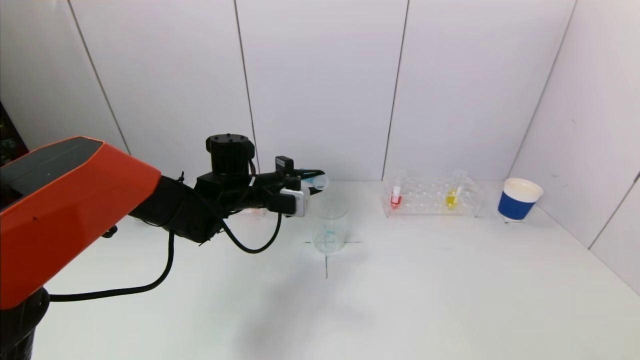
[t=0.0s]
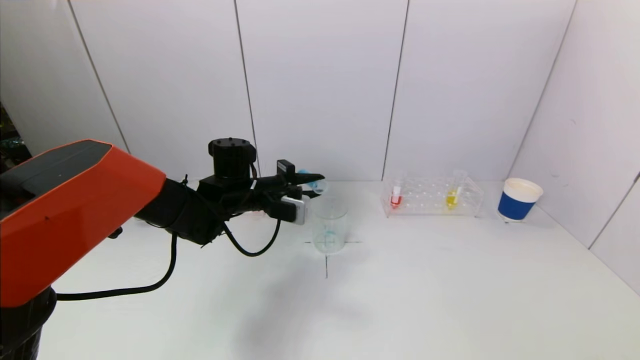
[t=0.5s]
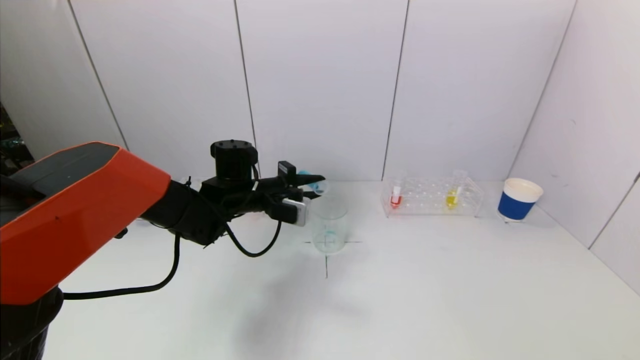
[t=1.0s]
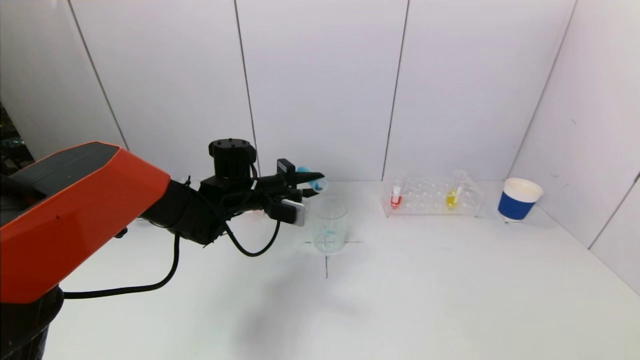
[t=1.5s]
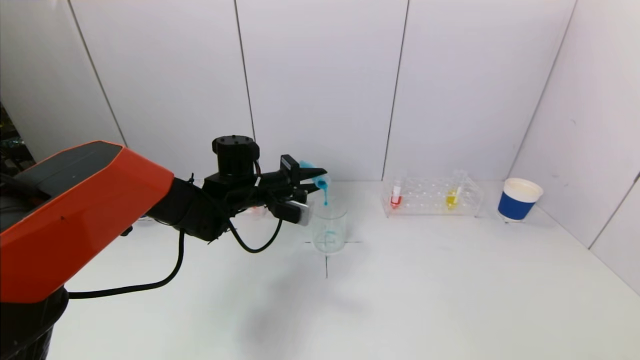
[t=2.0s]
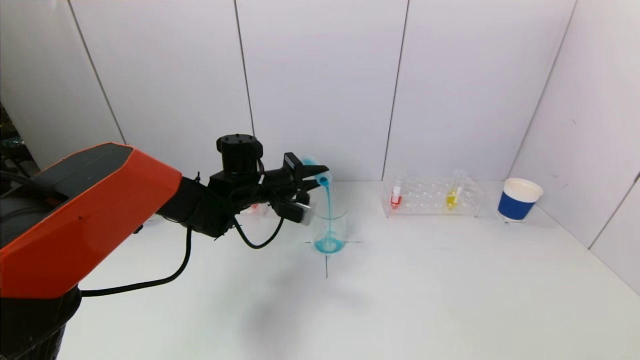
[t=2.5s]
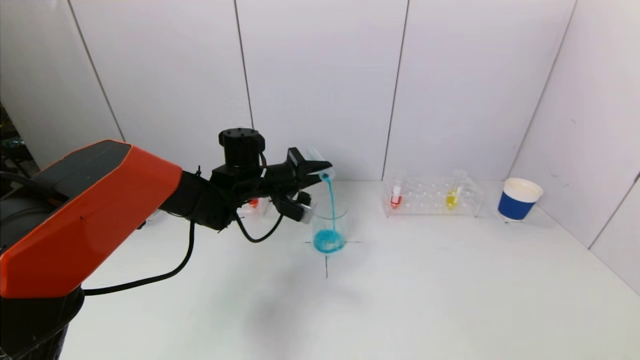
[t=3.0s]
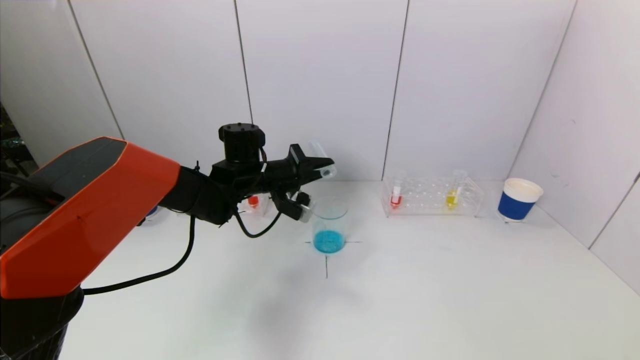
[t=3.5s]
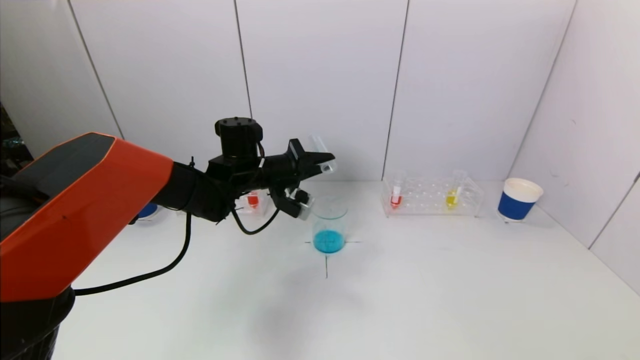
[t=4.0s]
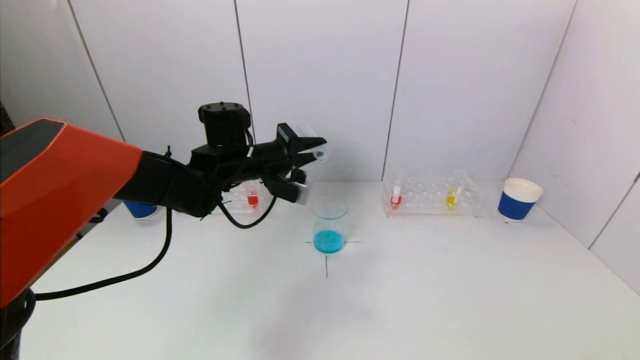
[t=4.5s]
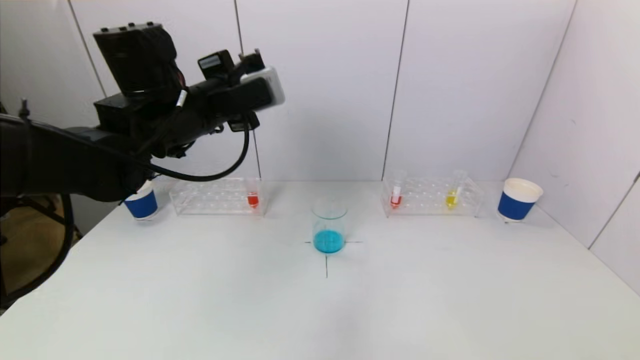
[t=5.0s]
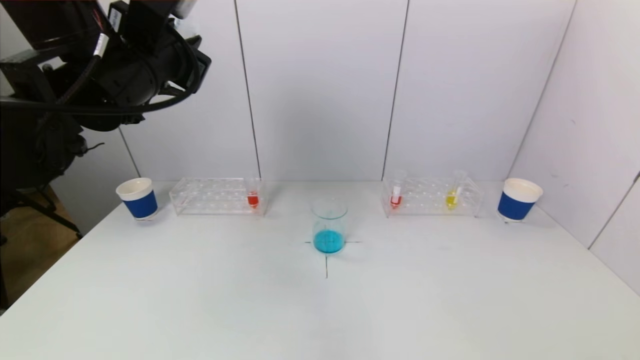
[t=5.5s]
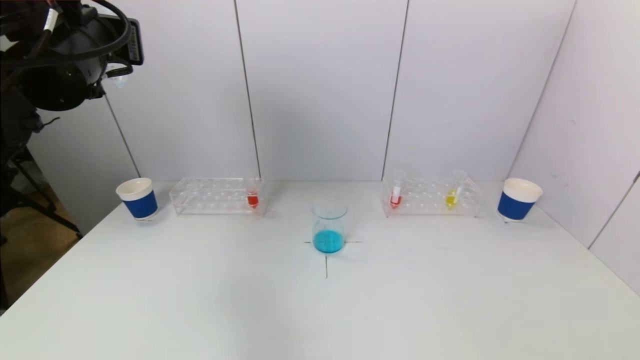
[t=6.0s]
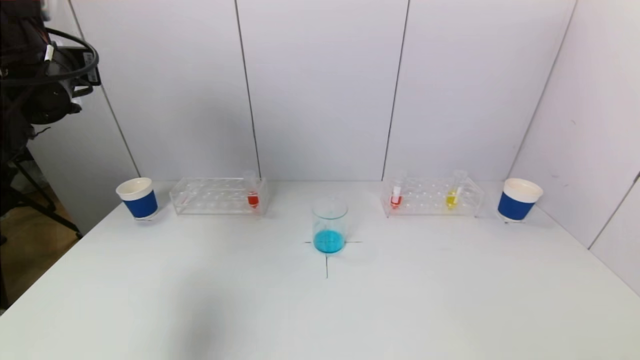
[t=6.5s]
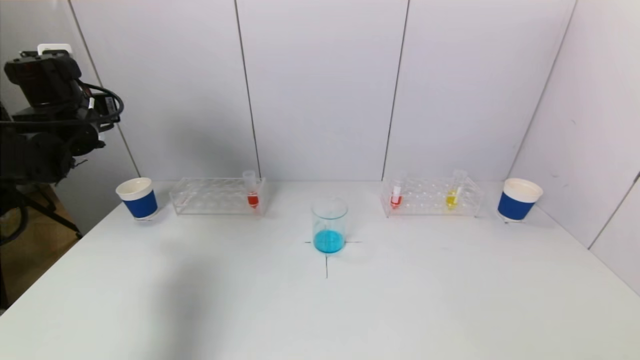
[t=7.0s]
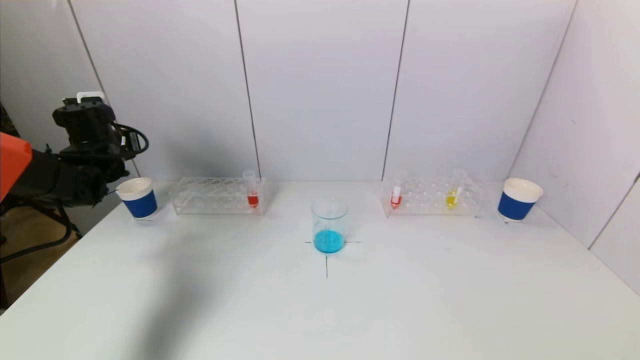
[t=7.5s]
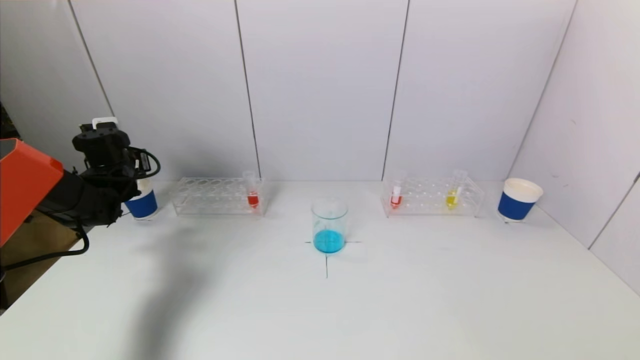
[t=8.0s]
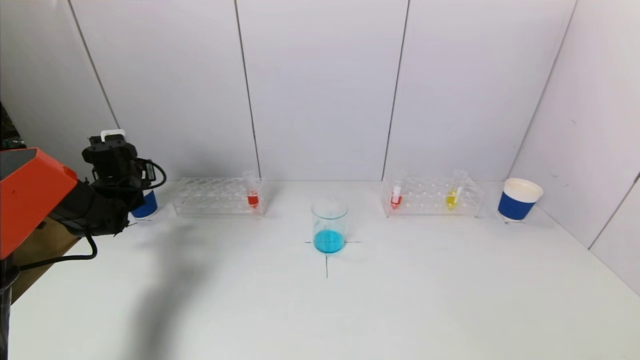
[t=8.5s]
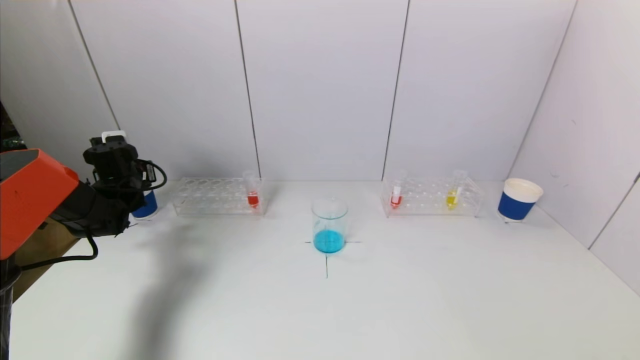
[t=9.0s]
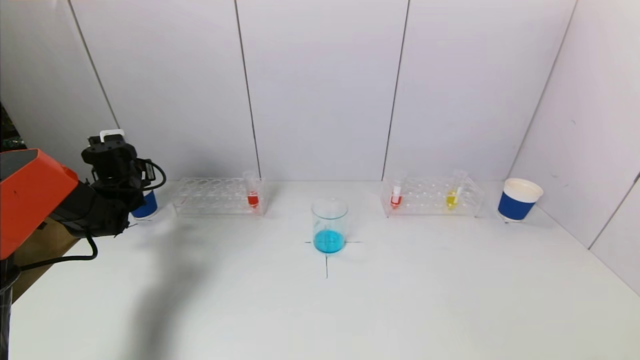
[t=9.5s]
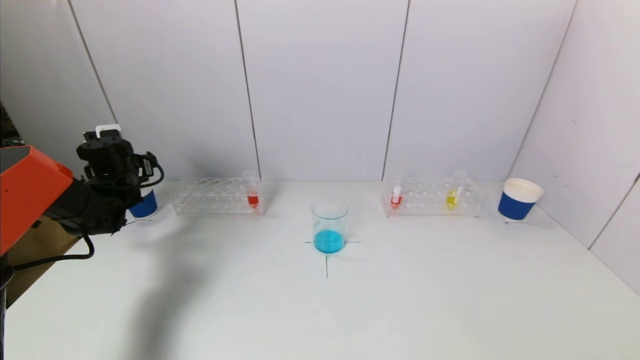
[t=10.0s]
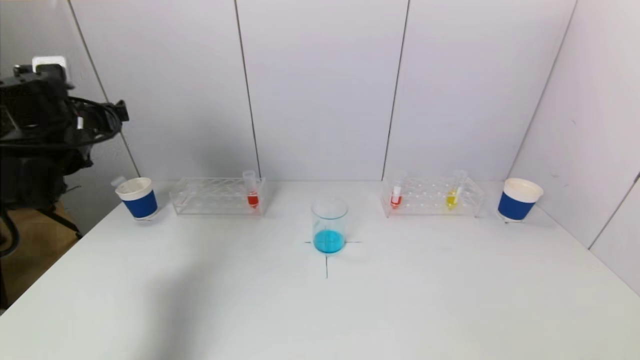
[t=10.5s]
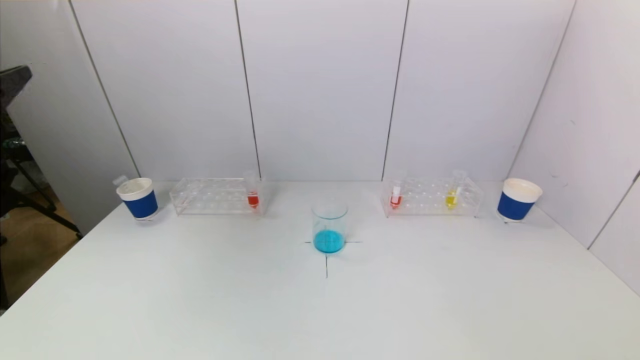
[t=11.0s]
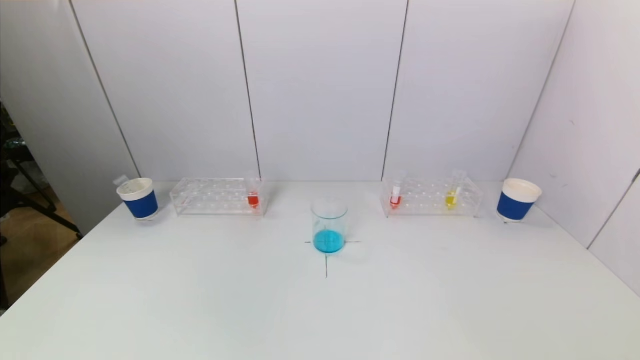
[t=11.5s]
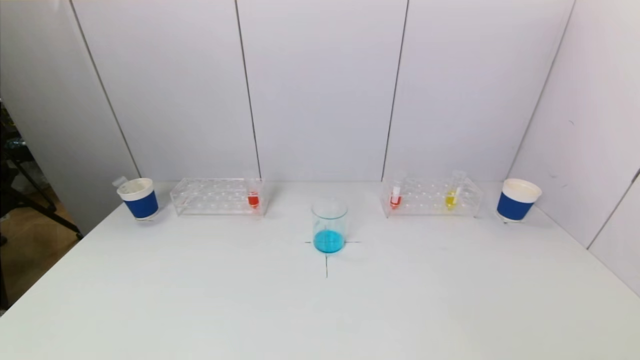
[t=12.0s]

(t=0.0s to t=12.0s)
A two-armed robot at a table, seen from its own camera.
Task of the whole recording: pick up a test tube with pigment on left test tube rack and a test tube with pigment on right test tube rack by grippers and pour them into the beaker.
Step, t=0.0s - t=4.0s: Pour the blue reagent into the graduated cylinder with the left gripper.
Step, t=4.5s - t=10.0s: Place the test tube into the paper cup with the left gripper.
t=0.0s - t=2.0s: The grippers make only small movements.
t=4.0s - t=6.0s: The left gripper travels upward, to the left and backward by approximately 25 cm.
t=6.0s - t=8.0s: The left gripper shifts some 30 cm downward, forward and to the left.
t=8.0s - t=10.0s: The left gripper opens up.
t=10.0s - t=12.0s: The left gripper is displaced backward by about 50 cm.

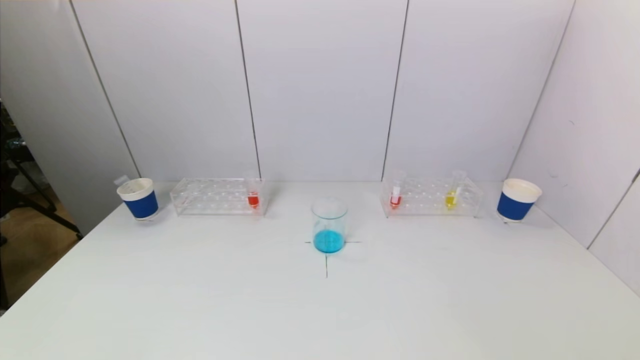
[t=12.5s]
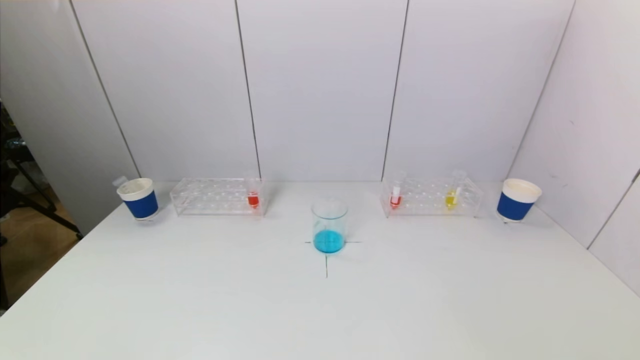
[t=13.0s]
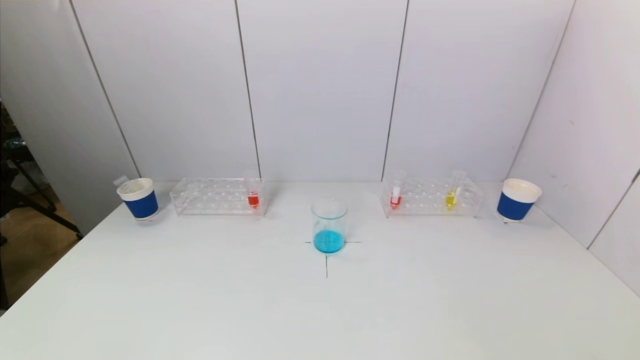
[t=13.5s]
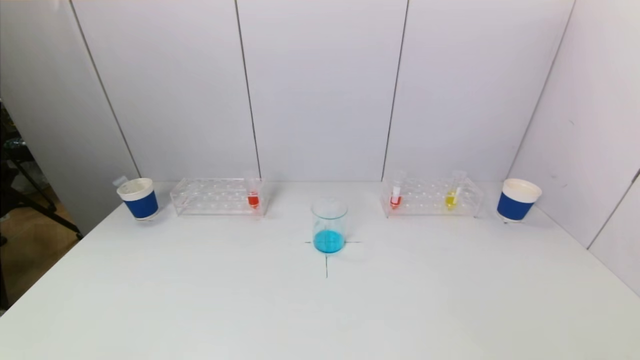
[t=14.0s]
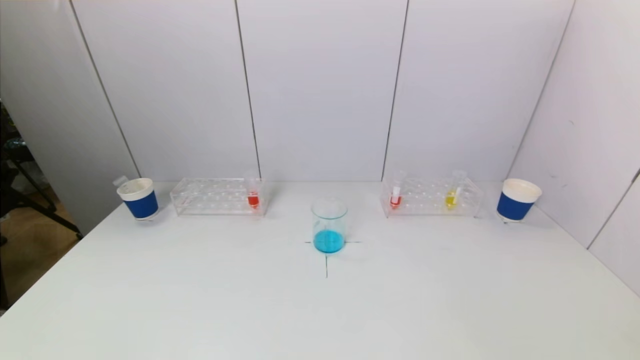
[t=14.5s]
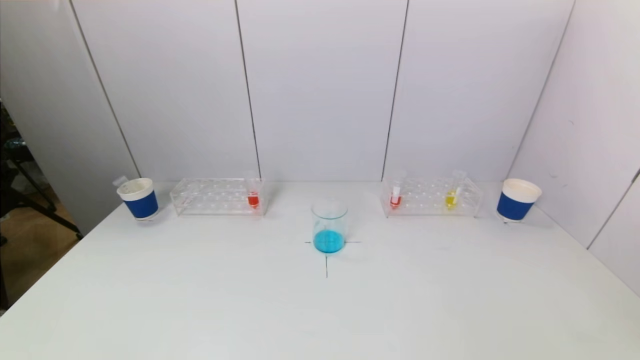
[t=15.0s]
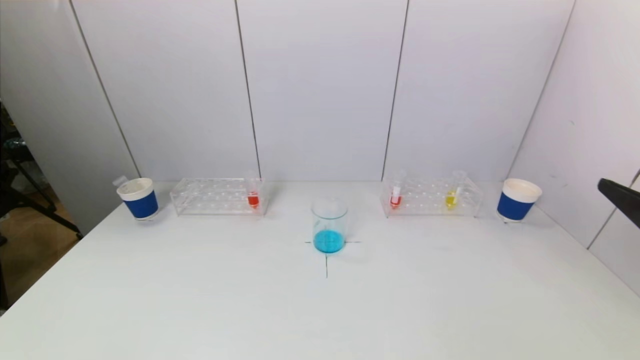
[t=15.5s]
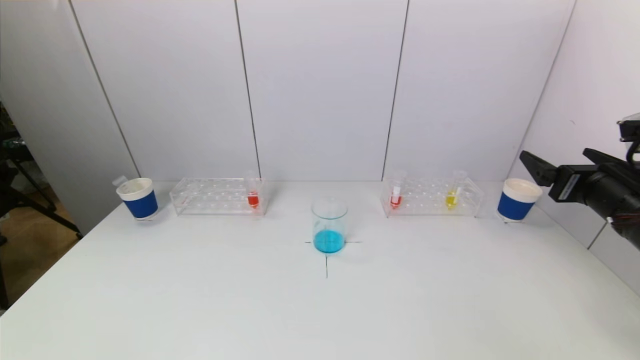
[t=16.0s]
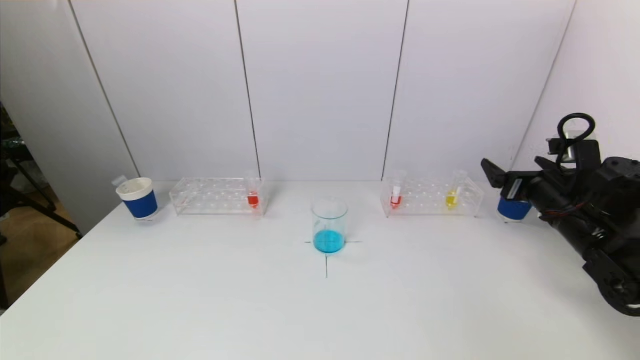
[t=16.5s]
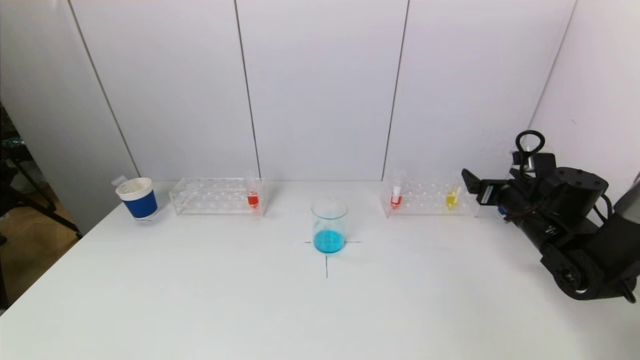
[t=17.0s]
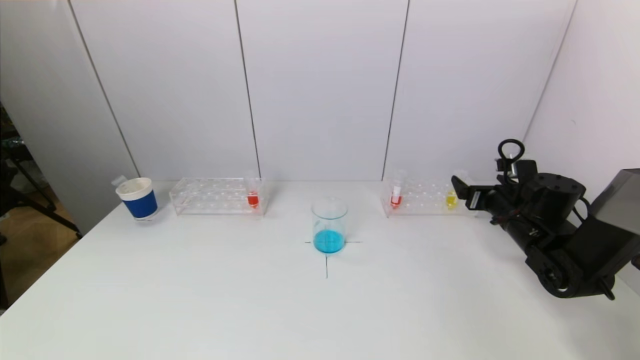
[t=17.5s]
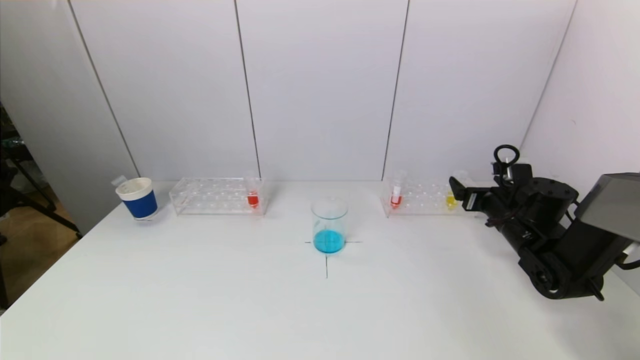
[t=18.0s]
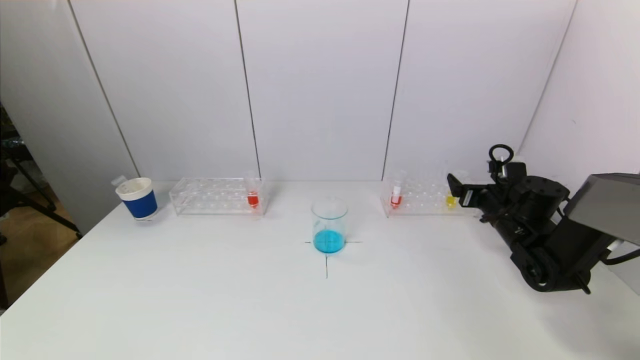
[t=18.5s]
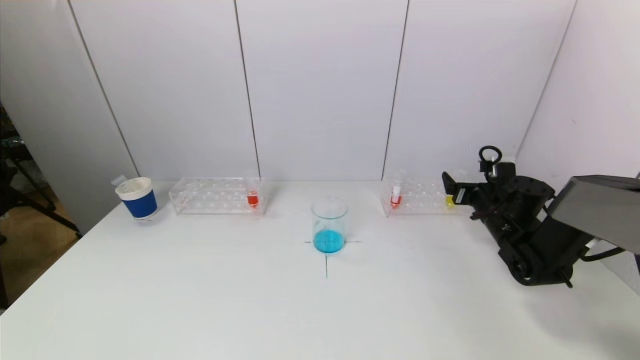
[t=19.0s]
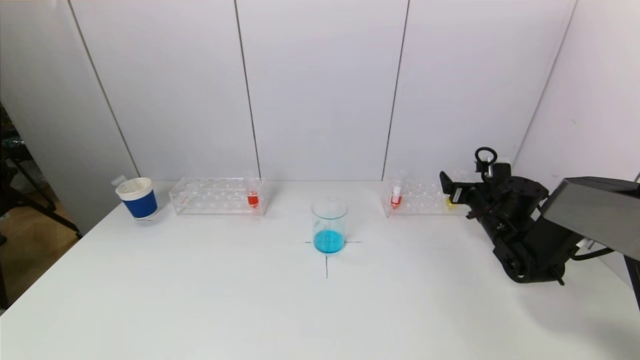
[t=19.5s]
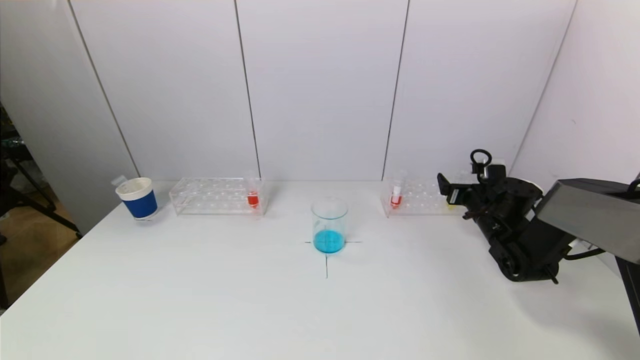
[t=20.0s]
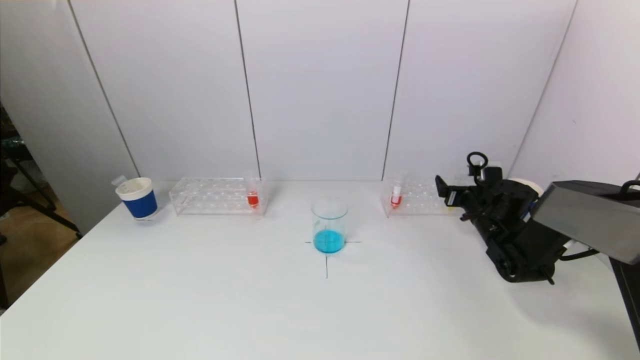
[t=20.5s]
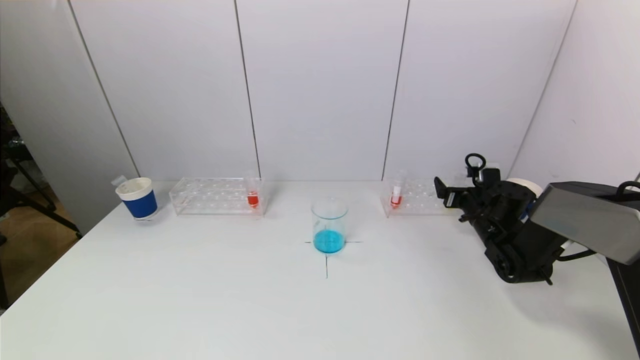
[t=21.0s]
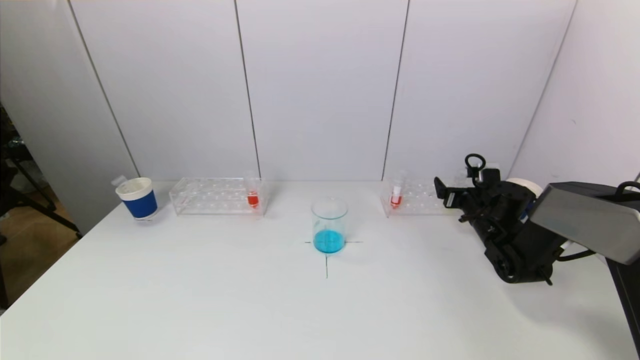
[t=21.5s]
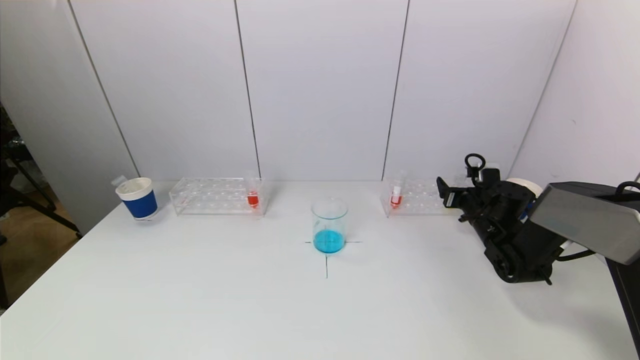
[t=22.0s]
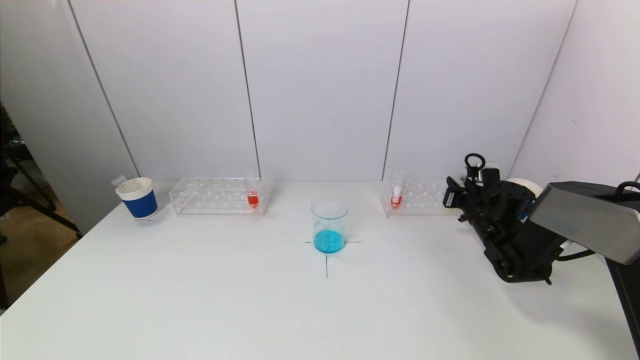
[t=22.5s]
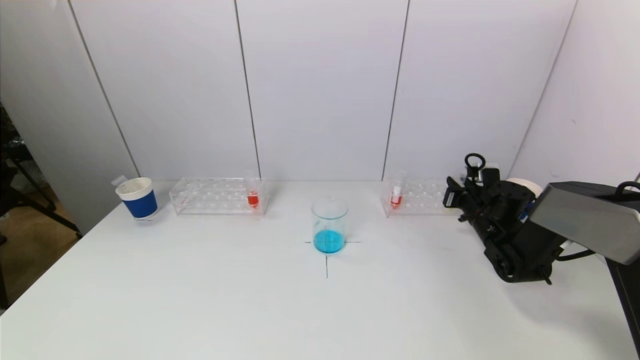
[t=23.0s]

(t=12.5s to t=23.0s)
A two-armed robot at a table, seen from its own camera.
Task of the whole recording: pick up a test tube with pigment on left test tube rack and a test tube with pigment on right test tube rack by grippers and pour them into the beaker.
t=14.5s - t=16.5s: The right gripper moves forward, approximately 35 cm.
t=16.5s - t=19.0s: The right gripper travels forward and downward by approximately 15 cm.
t=19.0s - t=21.0s: There are only small adjustments of the grippers.
